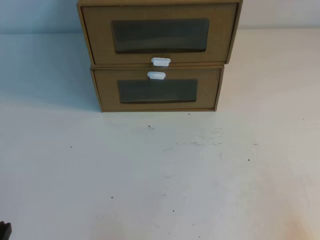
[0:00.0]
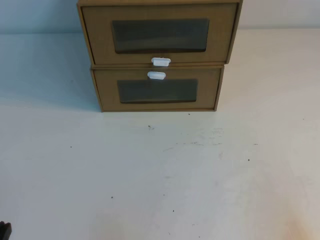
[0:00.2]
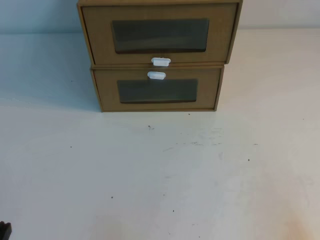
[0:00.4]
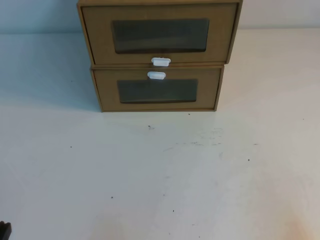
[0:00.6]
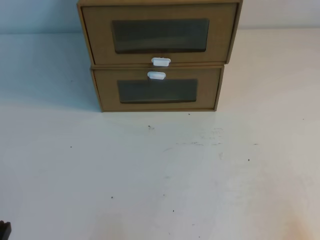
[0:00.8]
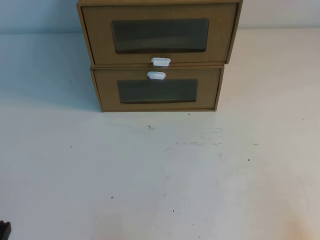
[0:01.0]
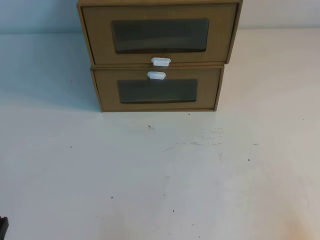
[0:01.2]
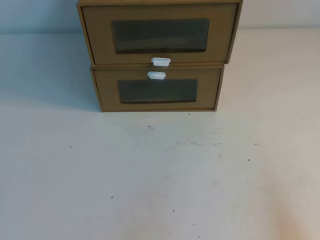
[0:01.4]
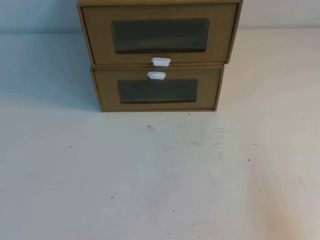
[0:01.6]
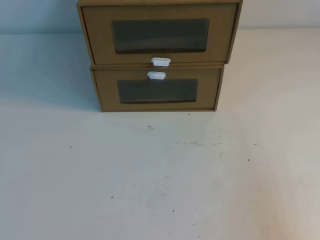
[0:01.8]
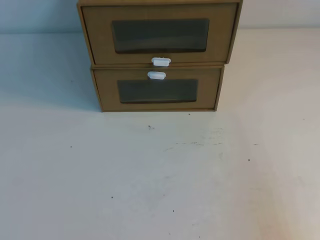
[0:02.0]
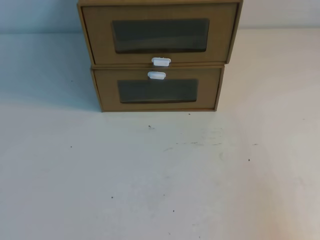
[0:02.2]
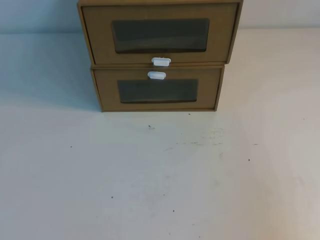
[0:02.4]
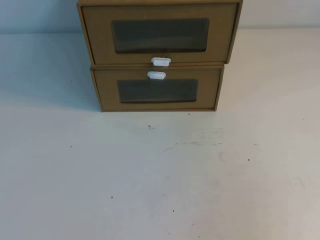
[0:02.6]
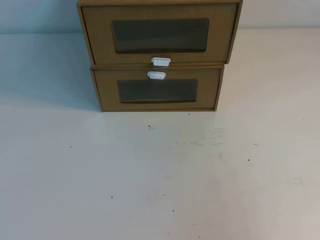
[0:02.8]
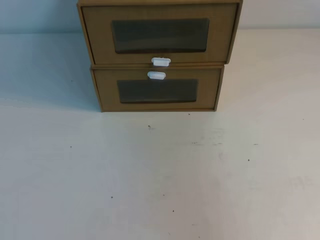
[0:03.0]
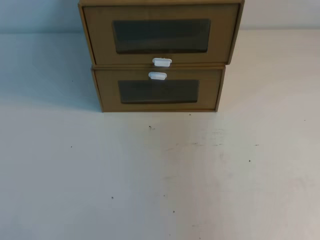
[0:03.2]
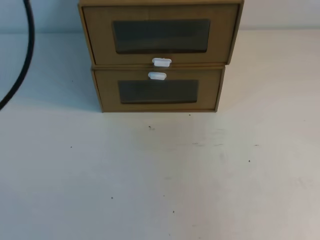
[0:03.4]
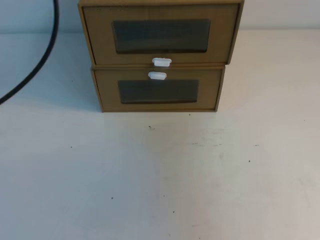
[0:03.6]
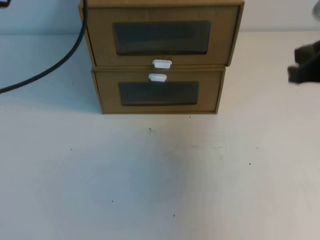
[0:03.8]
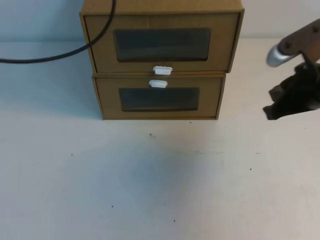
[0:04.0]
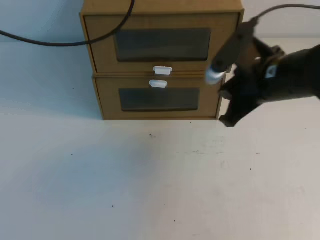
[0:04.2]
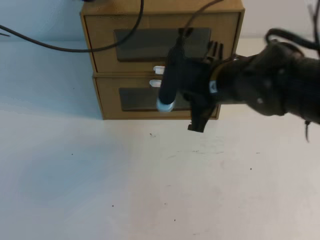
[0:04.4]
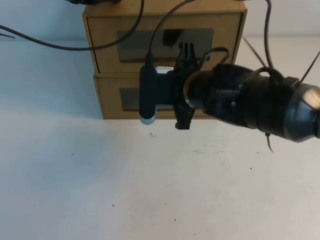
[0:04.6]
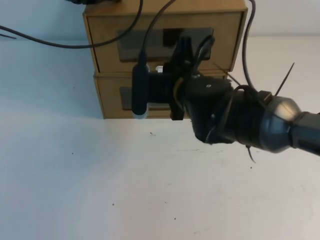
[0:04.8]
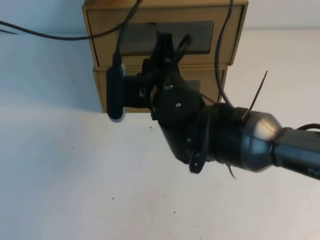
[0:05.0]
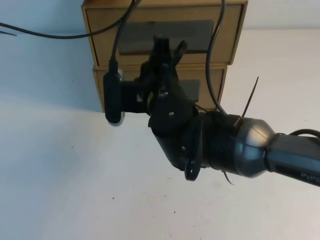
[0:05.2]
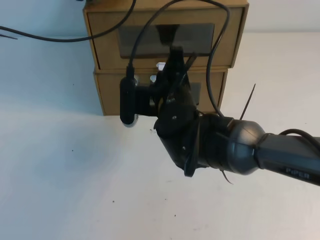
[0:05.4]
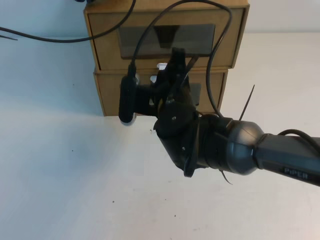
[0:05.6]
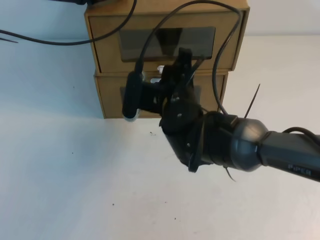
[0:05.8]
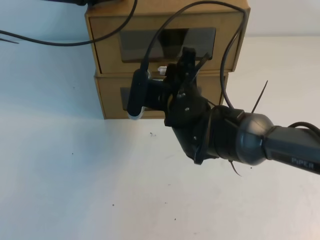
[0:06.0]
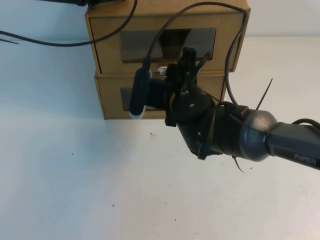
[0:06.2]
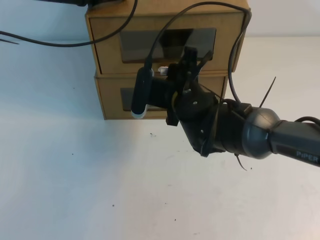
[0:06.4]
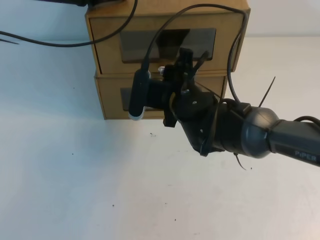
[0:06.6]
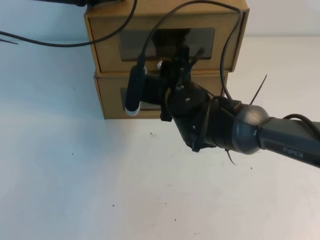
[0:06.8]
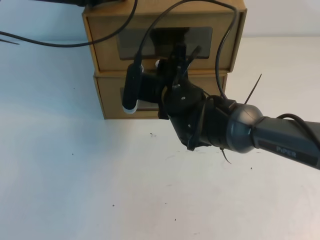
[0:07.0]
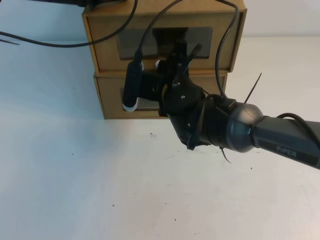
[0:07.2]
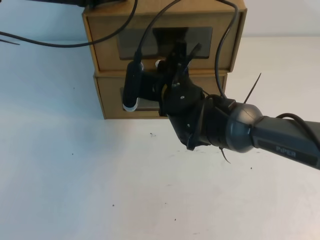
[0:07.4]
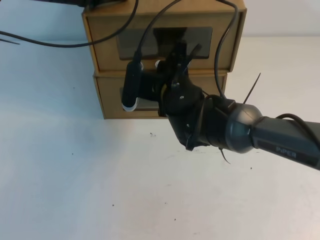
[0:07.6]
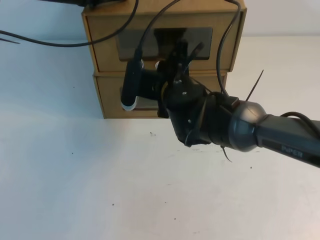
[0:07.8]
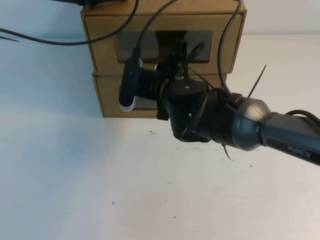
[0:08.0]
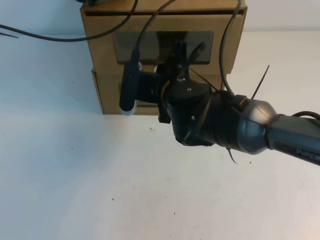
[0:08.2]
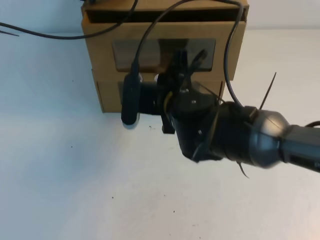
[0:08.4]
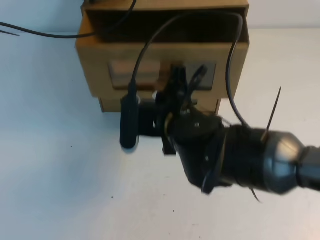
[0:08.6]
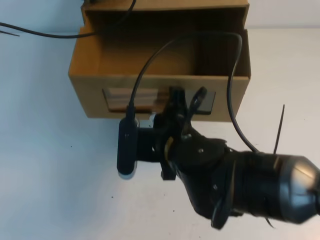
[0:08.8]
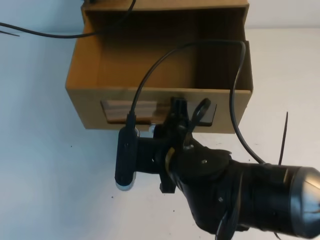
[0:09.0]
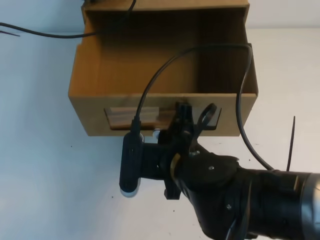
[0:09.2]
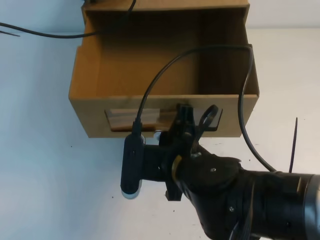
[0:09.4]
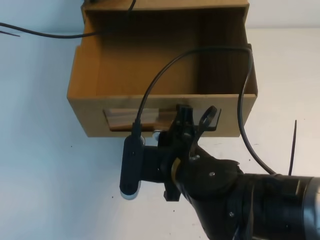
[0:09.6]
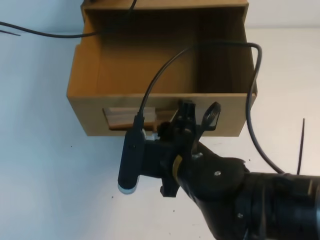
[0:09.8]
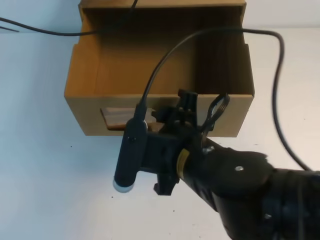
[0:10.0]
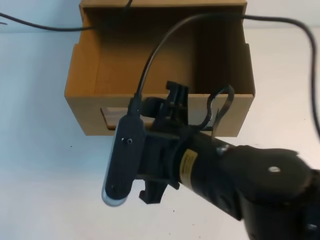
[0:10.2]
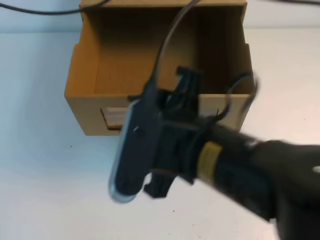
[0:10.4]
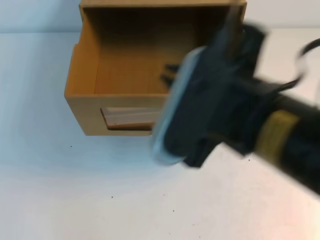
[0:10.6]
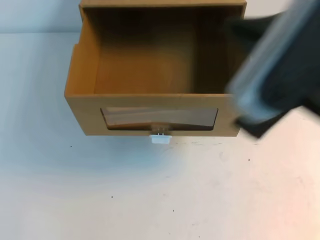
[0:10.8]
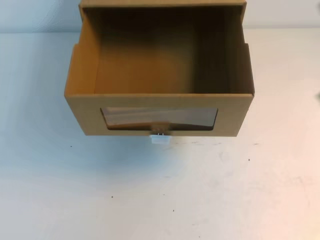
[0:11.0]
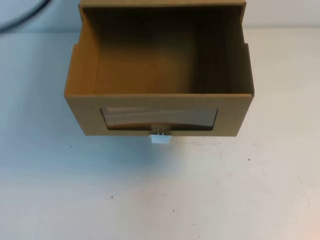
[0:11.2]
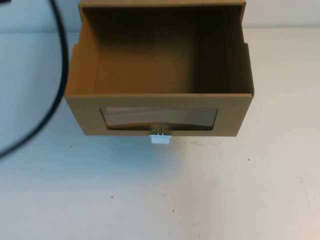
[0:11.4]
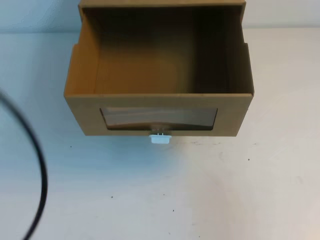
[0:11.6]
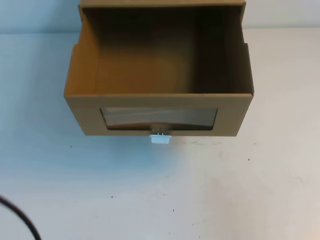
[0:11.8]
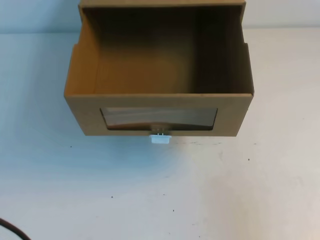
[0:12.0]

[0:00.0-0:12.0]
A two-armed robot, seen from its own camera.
Task of the whole recording: open the shoebox on the table.
0:03.0 to 0:04.4: The left gripper heads forward, covering about 40 cm; the right gripper goes some 35 cm forward, to the left and downward.
0:04.4 to 0:06.0: The right gripper shifts approximately 10 cm to the left and downward, and opens its fingers.
0:06.0 to 0:07.6: The right gripper closes up.
0:07.6 to 0:09.0: The right gripper goes approximately 15 cm backward.
0:09.0 to 0:10.4: Both grippers move upward and backward, approximately 10 cm. The right gripper opens its fingers.
0:10.4 to 0:12.0: The left gripper goes roughly 35 cm backward. Meanwhile the right gripper heads to the right, covering some 25 cm, and closes up.

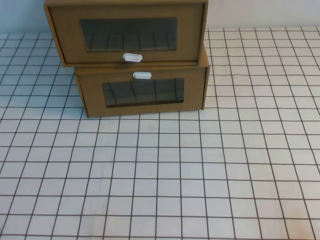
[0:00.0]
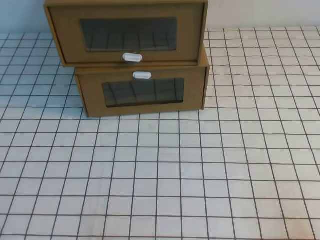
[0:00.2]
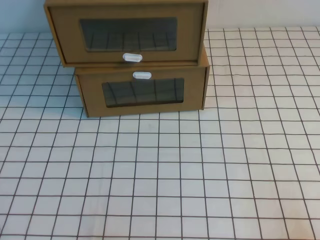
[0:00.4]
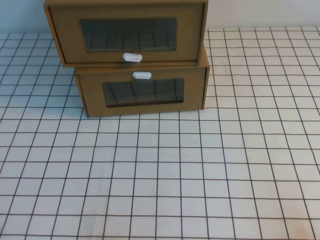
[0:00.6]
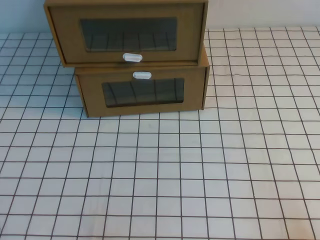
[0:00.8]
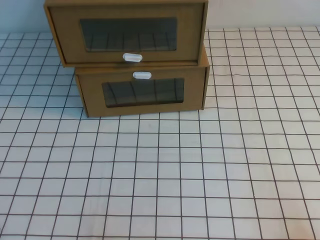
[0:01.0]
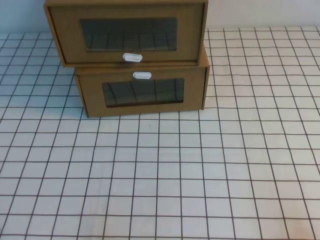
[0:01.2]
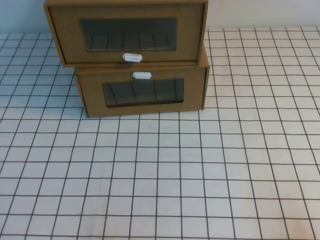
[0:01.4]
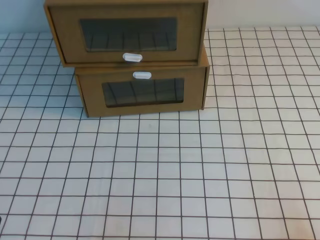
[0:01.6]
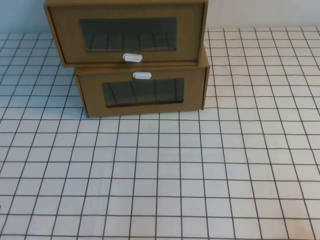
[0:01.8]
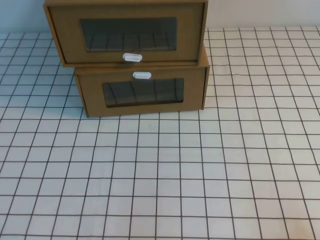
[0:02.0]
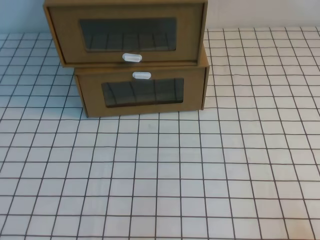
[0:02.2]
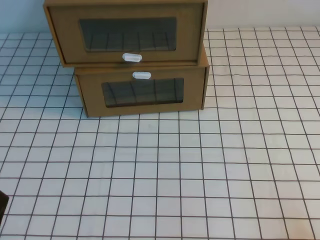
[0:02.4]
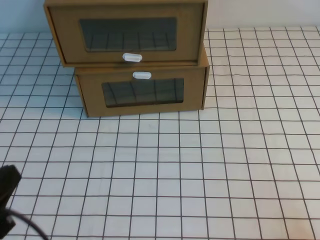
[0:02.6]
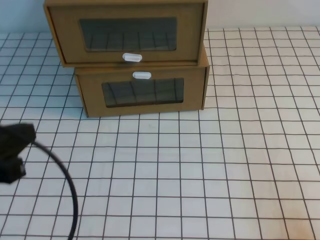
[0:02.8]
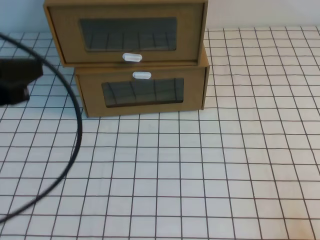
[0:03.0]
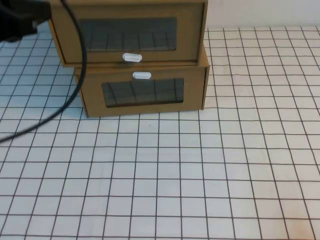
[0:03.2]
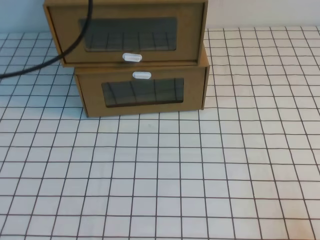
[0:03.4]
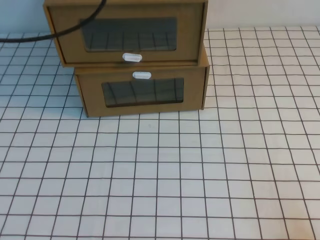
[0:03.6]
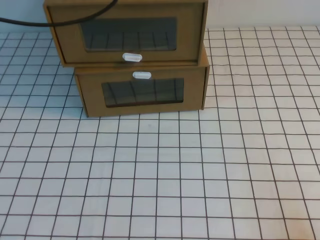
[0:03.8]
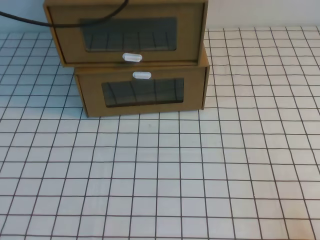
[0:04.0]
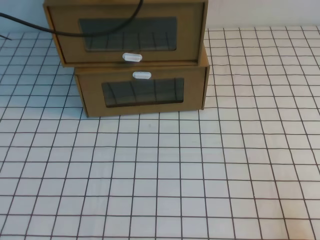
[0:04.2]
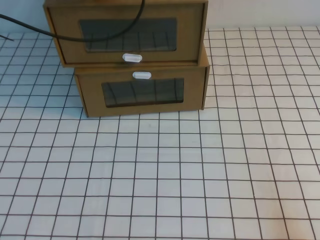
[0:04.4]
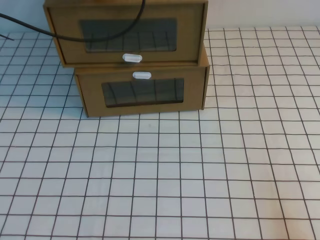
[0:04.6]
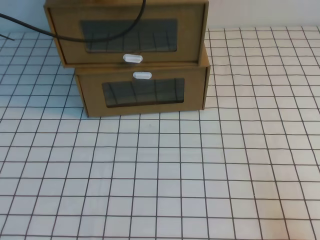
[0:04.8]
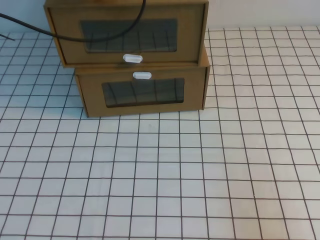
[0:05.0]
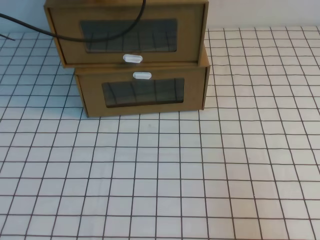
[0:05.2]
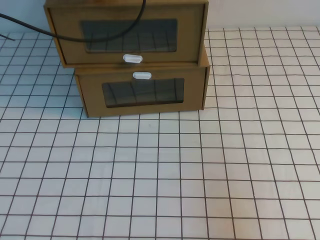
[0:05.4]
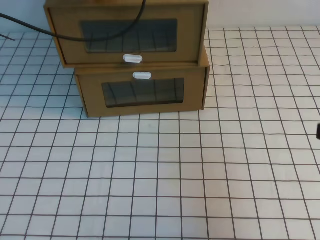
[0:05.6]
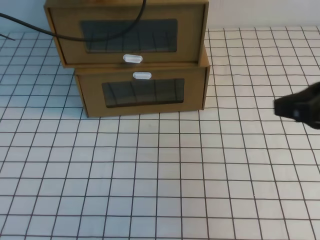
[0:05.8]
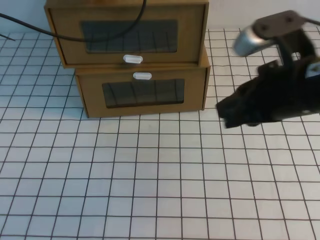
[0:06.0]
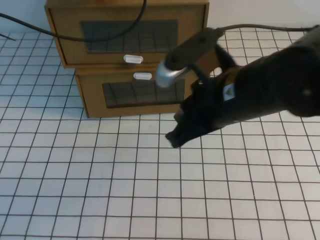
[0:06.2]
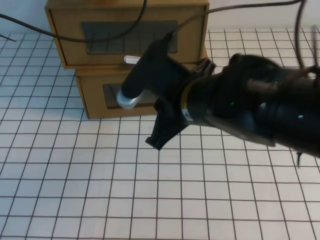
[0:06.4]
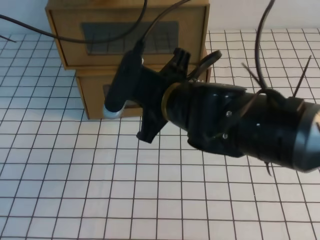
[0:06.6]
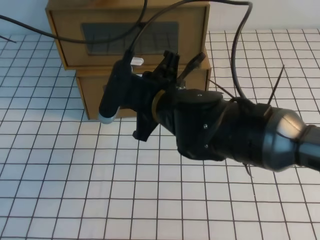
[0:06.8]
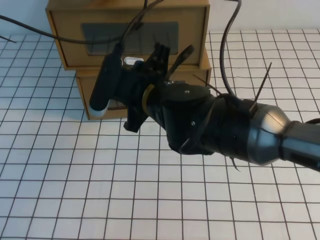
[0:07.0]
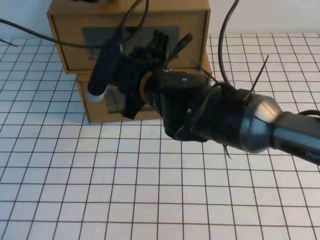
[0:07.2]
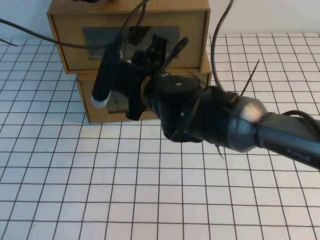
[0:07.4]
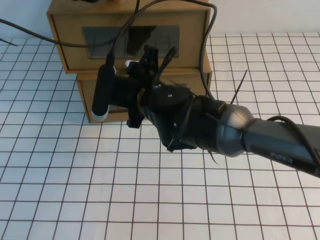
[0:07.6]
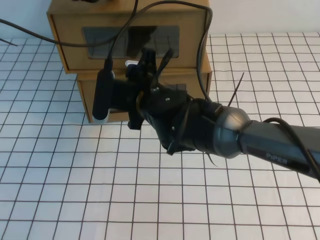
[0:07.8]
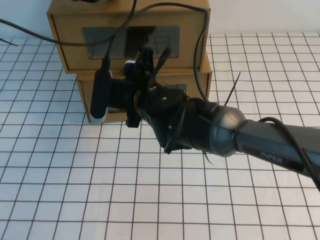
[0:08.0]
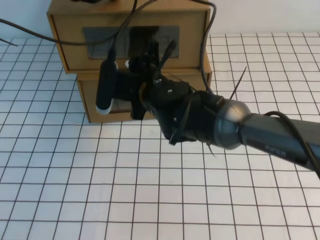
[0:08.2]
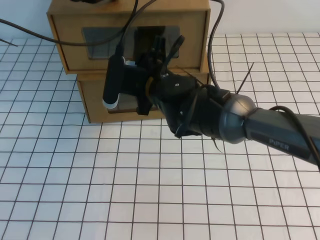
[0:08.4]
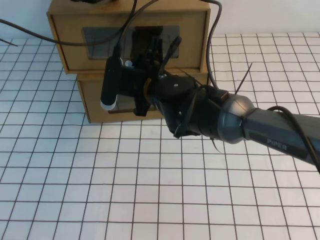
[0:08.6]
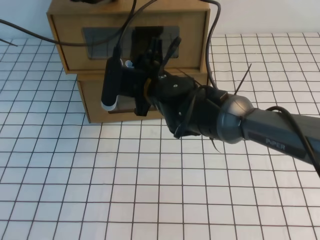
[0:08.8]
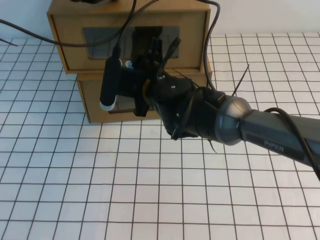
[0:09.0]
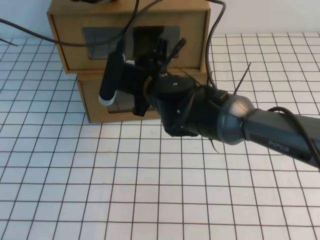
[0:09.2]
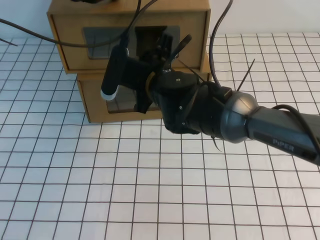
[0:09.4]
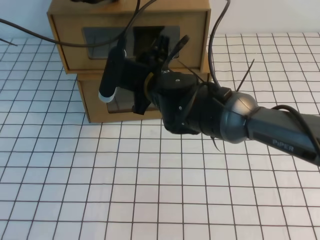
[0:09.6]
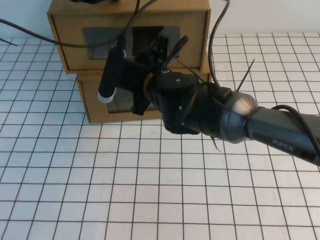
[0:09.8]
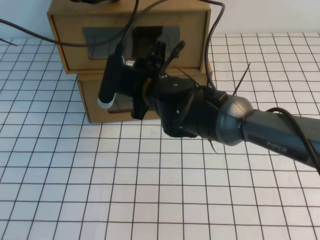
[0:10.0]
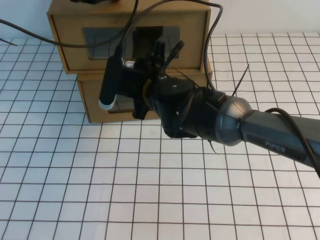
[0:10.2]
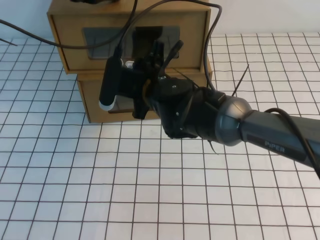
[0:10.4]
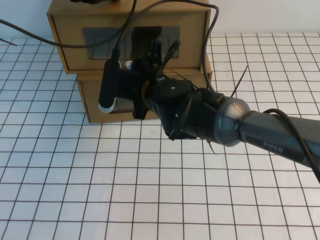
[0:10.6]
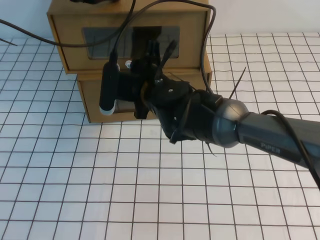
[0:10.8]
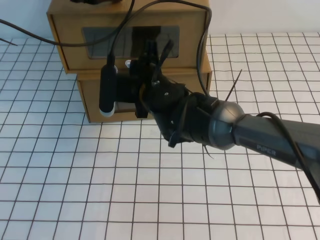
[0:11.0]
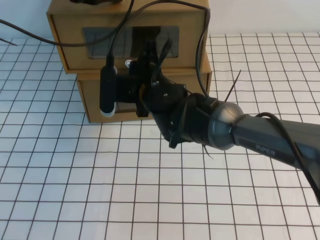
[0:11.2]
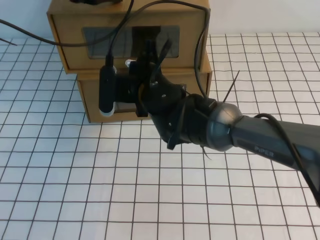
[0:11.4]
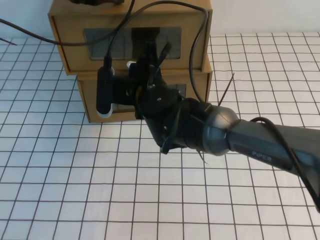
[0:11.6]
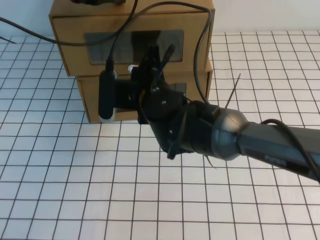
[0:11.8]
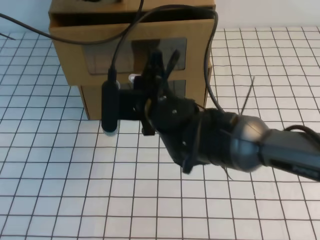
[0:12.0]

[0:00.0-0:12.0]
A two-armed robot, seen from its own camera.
Task of the whole recording: open the shoebox on the white tablecloth.
0:01.6 to 0:03.0: The left gripper travels upward and forward by approximately 25 cm.
0:03.0 to 0:04.4: The left gripper moves forward, about 30 cm.
0:04.4 to 0:06.0: The right gripper goes roughly 25 cm forward, upward and to the left.
0:06.0 to 0:07.6: The right gripper travels to the left, forward and downward by roughly 25 cm, and opens up.
0:07.6 to 0:10.4: The grippers stay close to where they were, moving slightly.
0:10.4 to 0:12.0: The right gripper shifts by some 5 cm, and closes.
